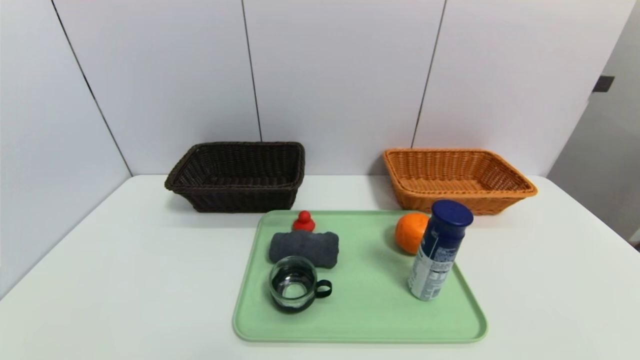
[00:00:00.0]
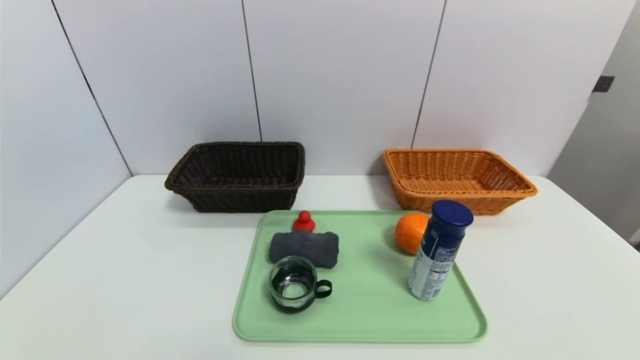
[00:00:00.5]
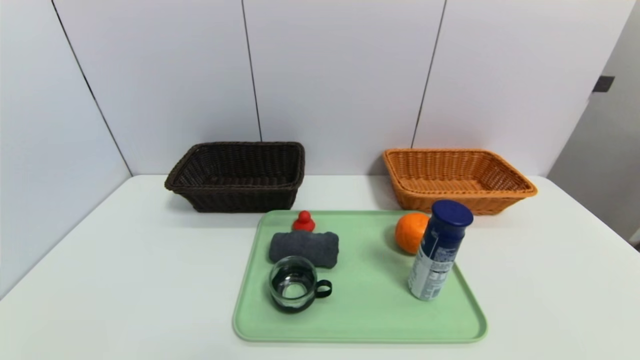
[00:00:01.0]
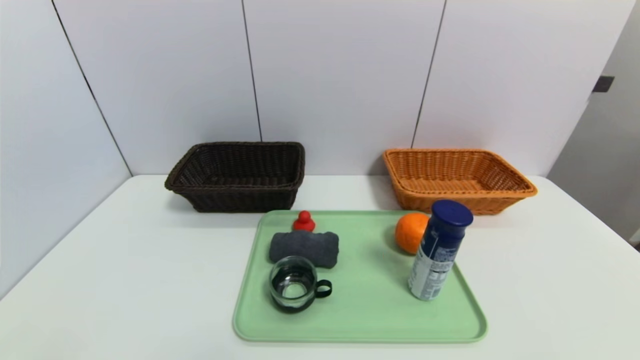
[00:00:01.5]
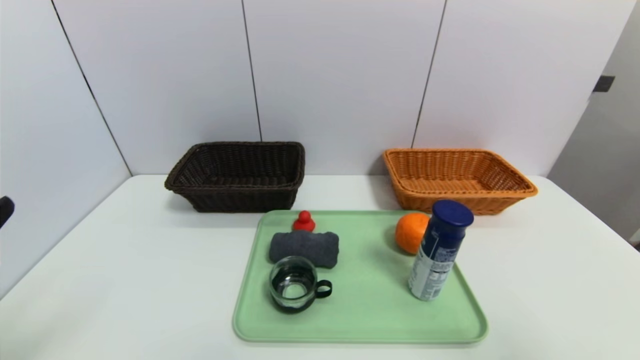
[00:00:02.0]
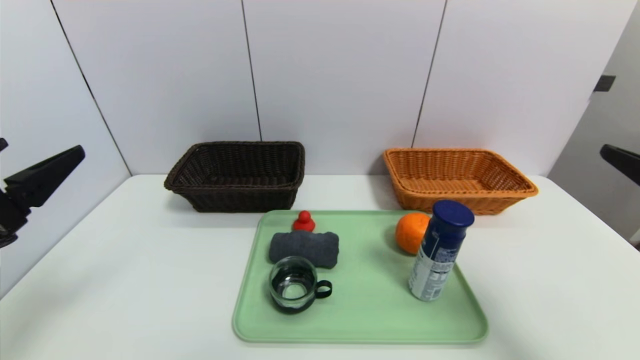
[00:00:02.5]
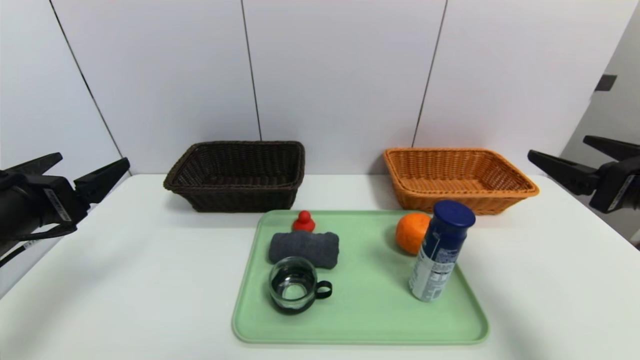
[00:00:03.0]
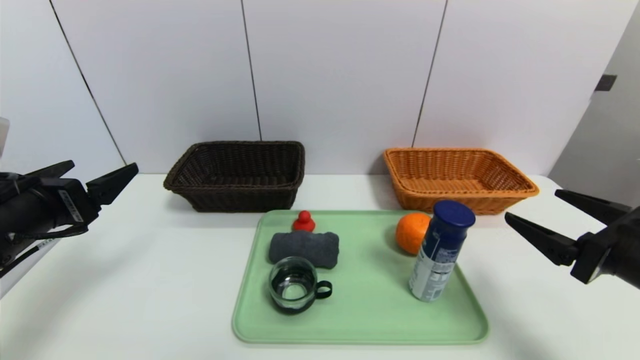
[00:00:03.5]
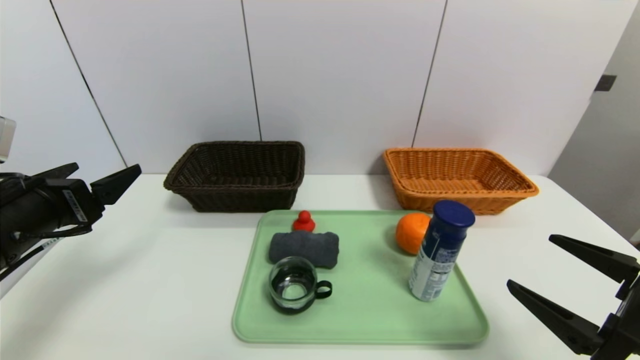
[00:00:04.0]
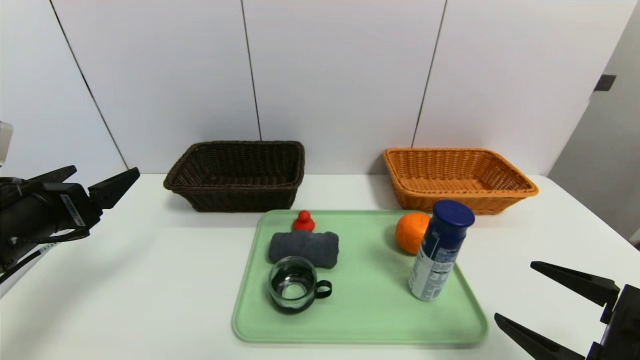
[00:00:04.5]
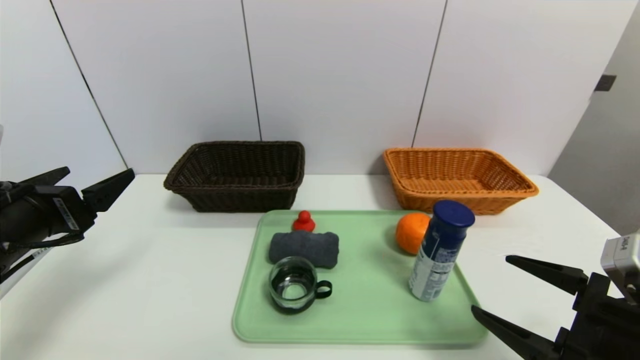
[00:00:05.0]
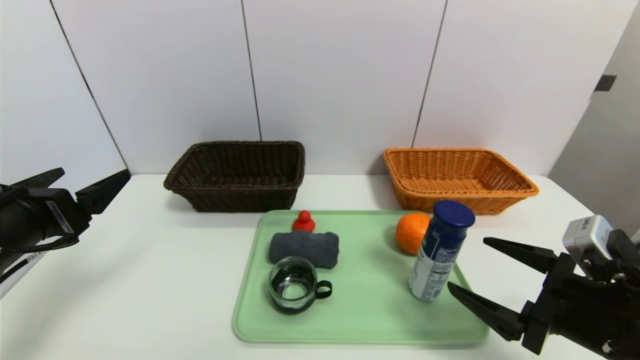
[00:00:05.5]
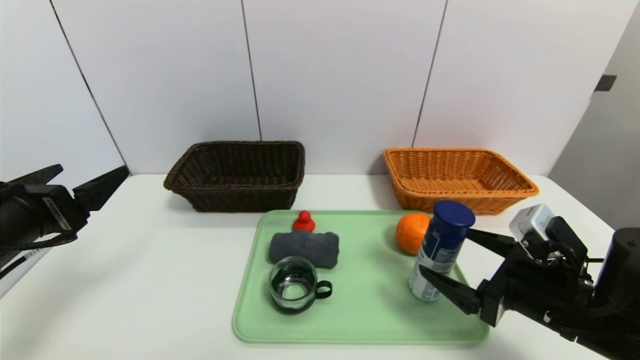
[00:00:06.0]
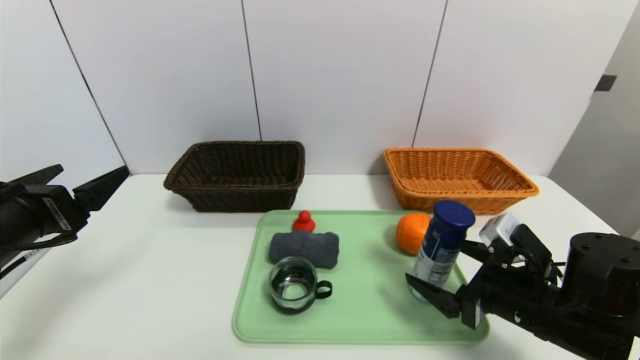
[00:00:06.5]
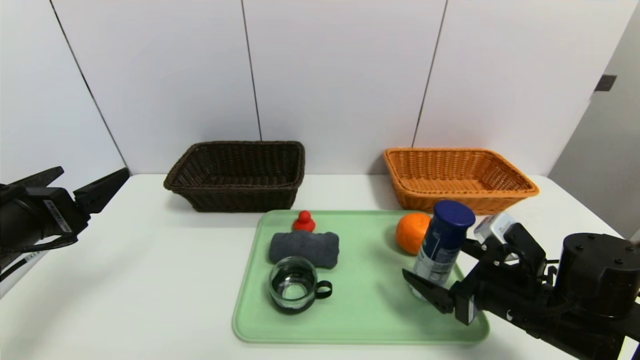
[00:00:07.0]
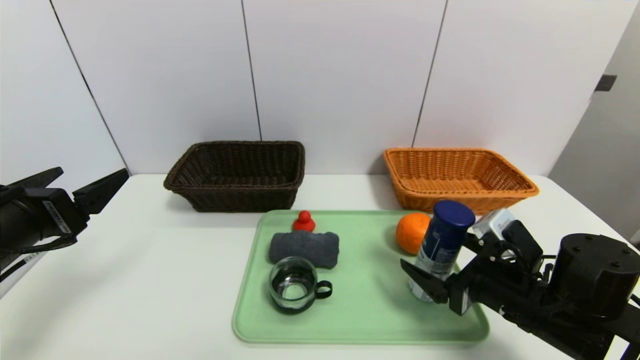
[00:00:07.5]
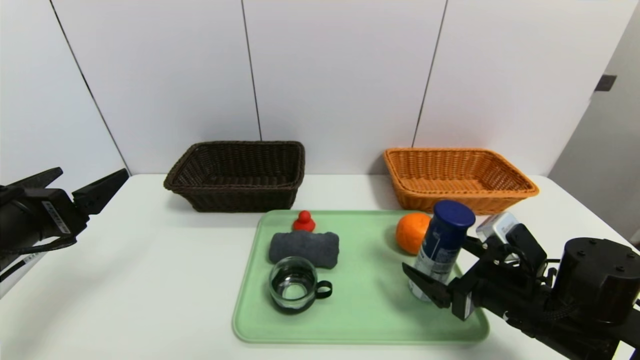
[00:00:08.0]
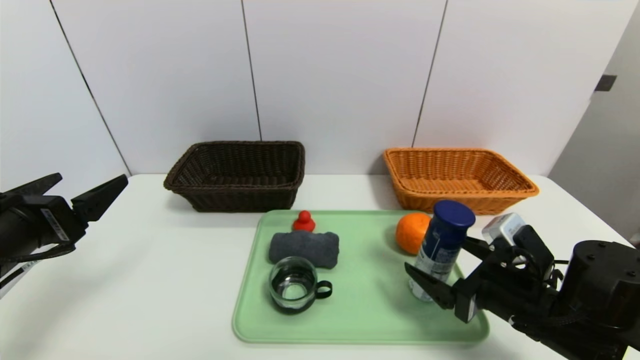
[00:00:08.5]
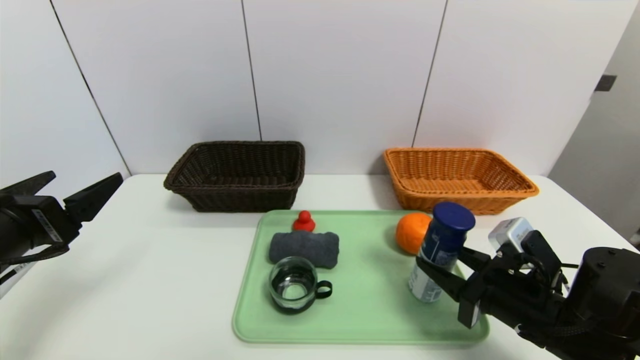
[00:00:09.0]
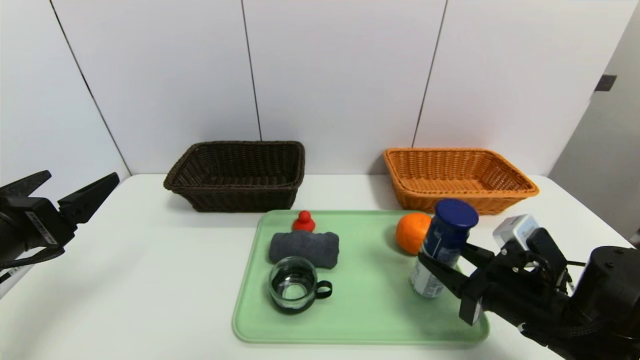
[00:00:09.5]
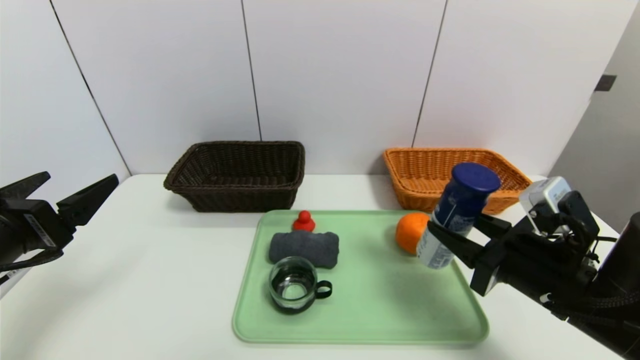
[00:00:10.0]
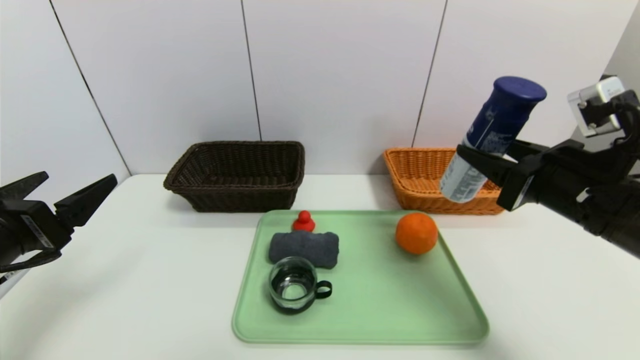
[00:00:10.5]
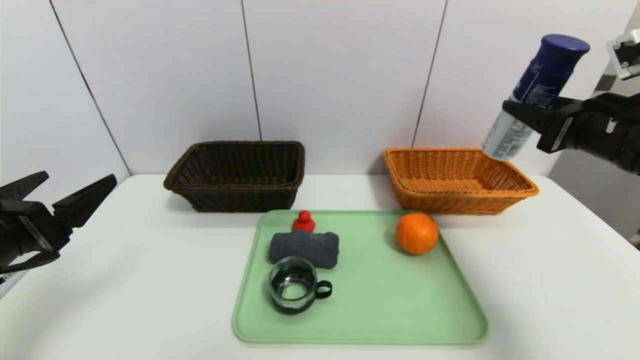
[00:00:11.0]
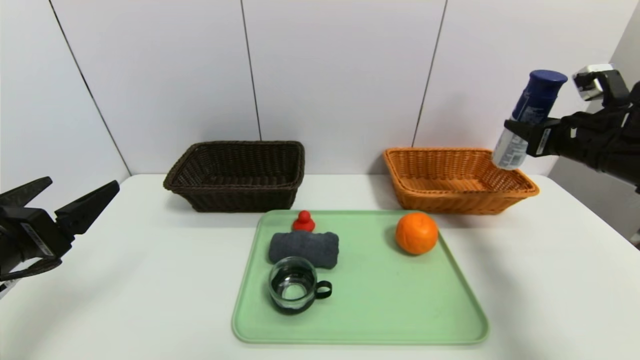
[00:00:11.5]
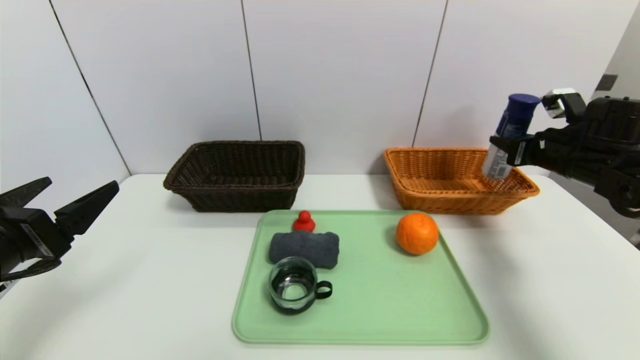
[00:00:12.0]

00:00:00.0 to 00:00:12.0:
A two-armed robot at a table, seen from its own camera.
Task of the whole recording: place the food in the right basket with the right gripper, and place the non food items in the left basket with the left gripper.
00:00:02.0 to 00:00:04.0: The right gripper travels downward and forward by about 15 cm. The left gripper moves forward, about 15 cm.
00:00:04.0 to 00:00:06.0: The right gripper travels forward by roughly 10 cm.
00:00:06.0 to 00:00:08.0: The grippers make only small movements.
00:00:08.0 to 00:00:10.0: The right gripper shifts approximately 5 cm upward, and closes up.
00:00:10.0 to 00:00:12.0: The right gripper moves forward and to the right, roughly 25 cm.

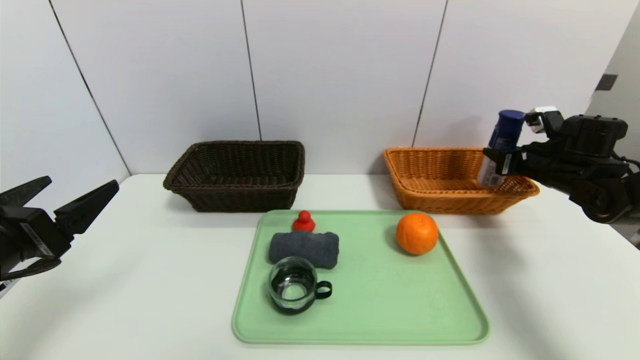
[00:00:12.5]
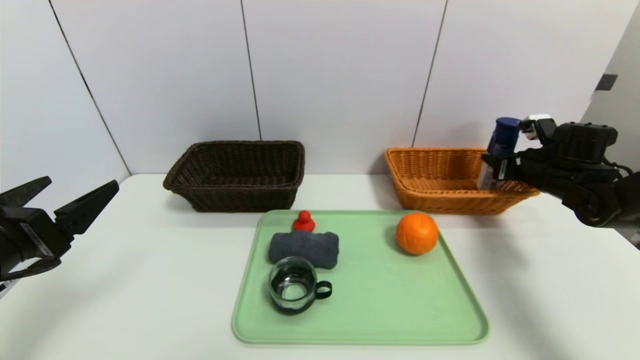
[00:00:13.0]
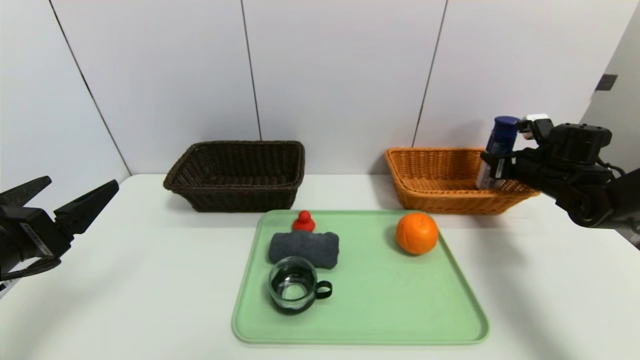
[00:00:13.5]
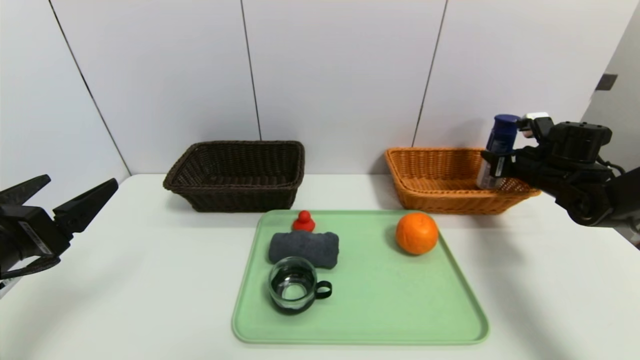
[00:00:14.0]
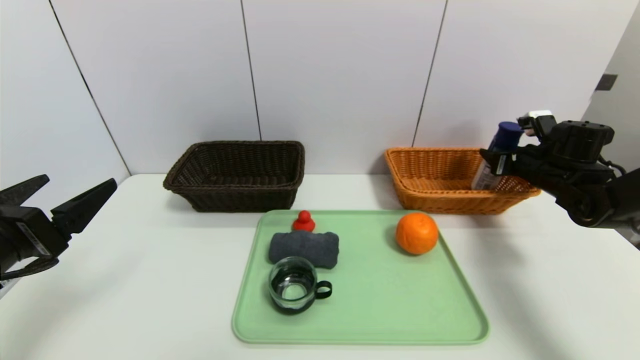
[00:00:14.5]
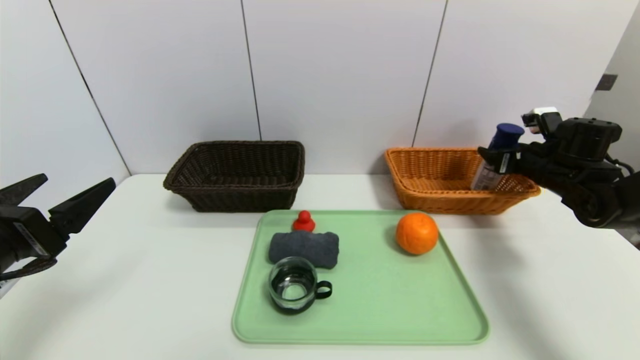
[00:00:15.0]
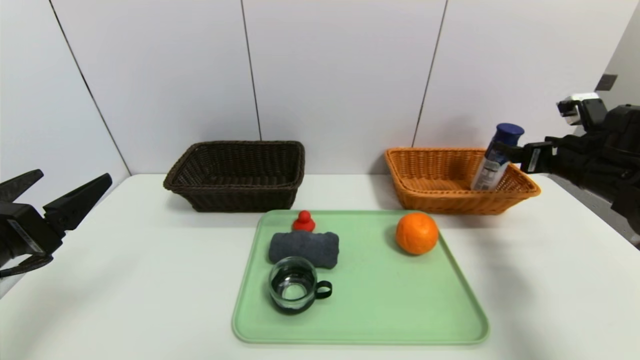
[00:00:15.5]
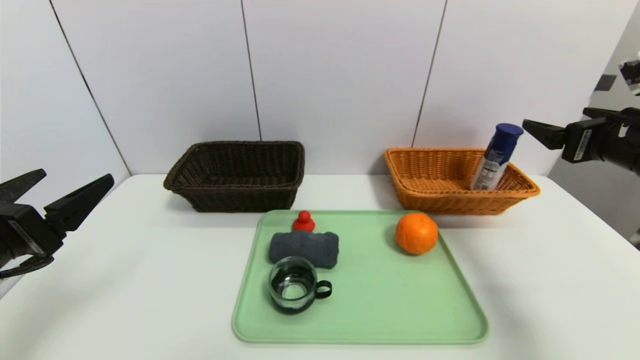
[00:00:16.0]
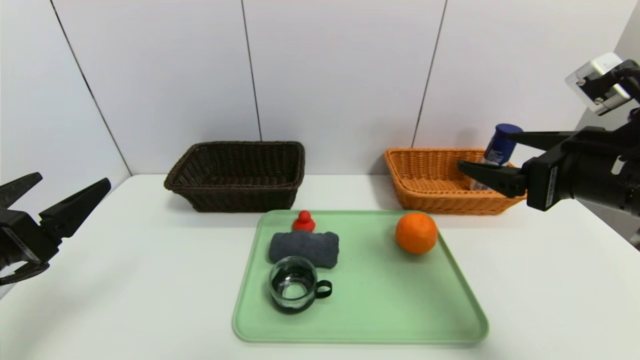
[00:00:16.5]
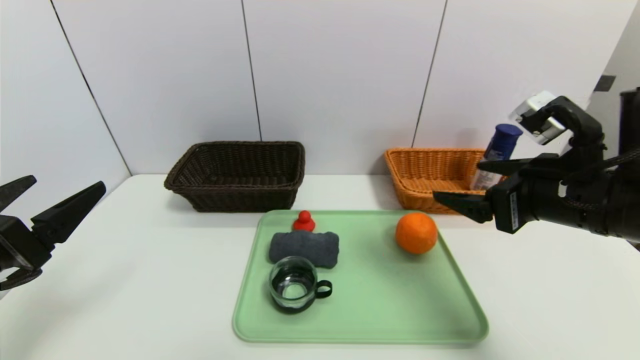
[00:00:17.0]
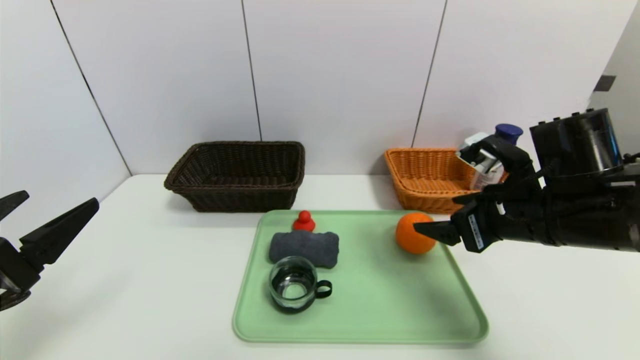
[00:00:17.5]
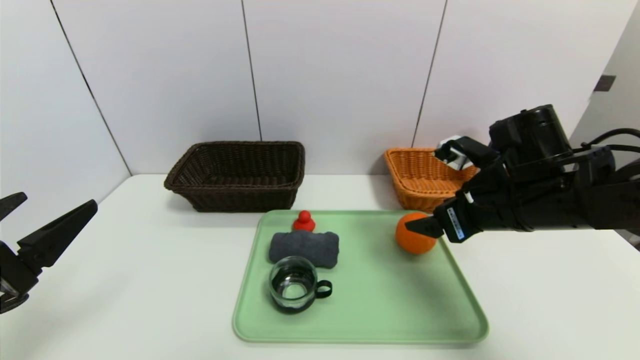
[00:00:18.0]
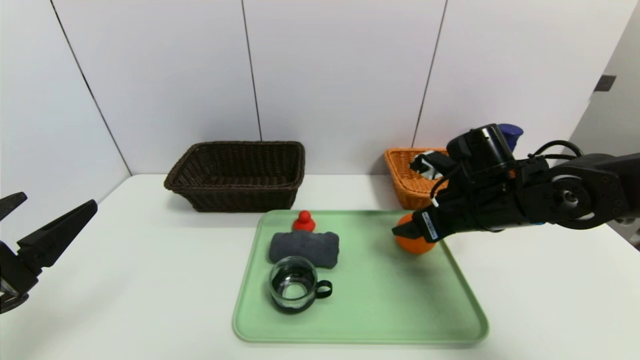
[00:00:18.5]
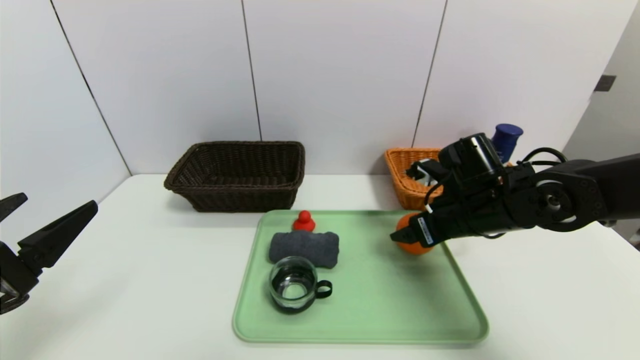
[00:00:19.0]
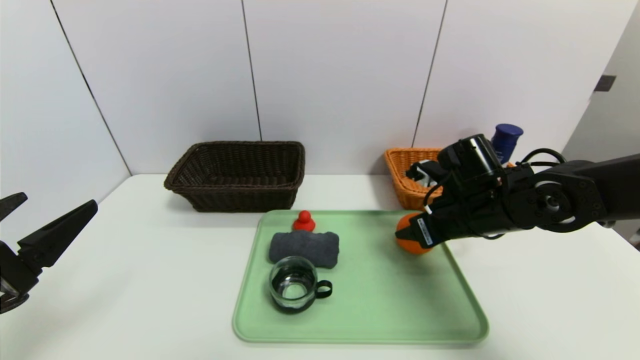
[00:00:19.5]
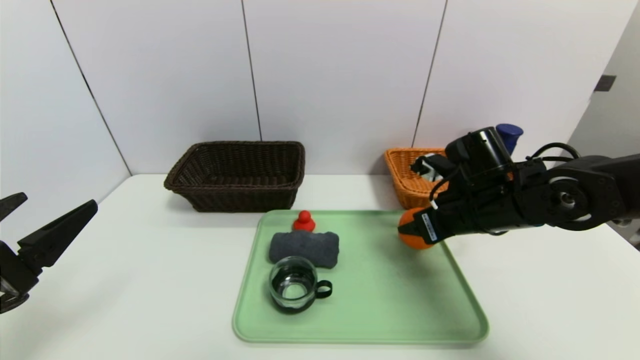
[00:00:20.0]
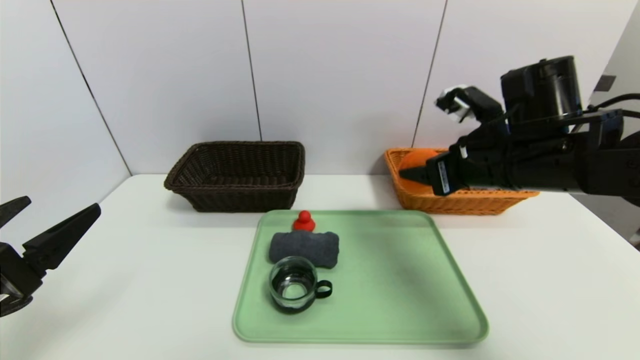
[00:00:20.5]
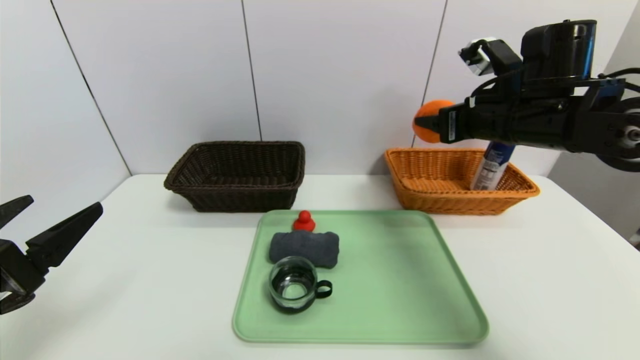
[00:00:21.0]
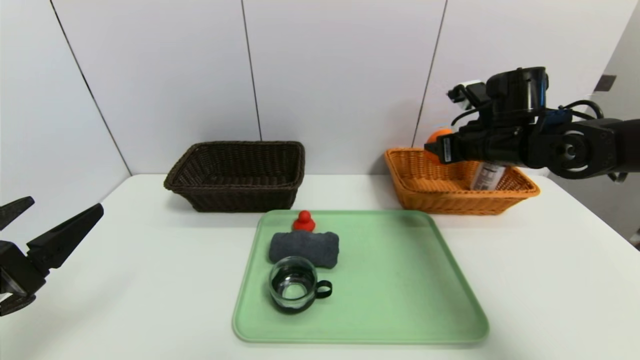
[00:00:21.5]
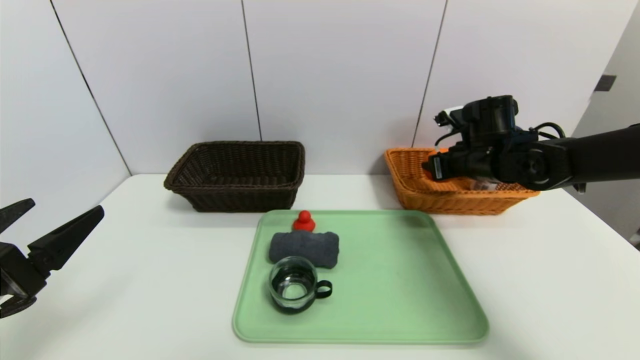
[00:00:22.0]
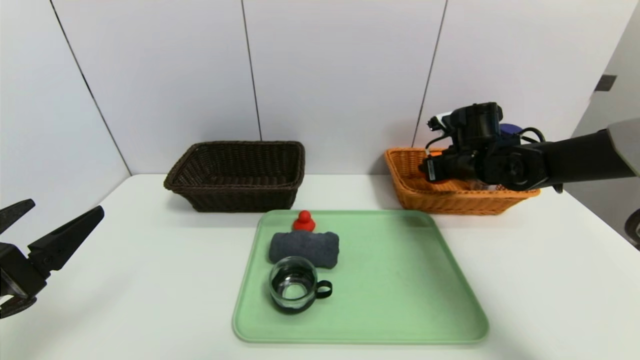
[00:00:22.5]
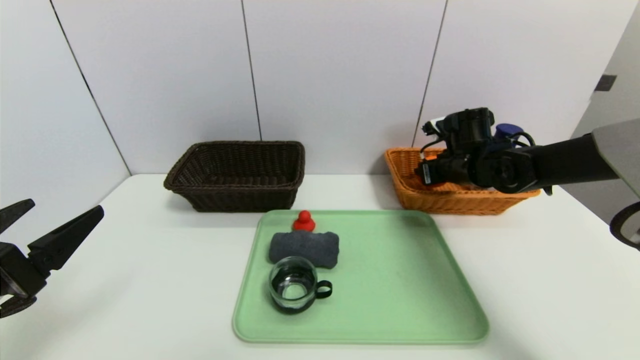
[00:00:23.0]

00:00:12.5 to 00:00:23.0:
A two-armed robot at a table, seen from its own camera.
Task of the whole recording: place the food in the right basket with the right gripper, and place the non food items in the left basket with the left gripper.
Step, 00:00:12.5 to 00:00:15.5: Grasp the yogurt and put it in the right basket.
00:00:12.5 to 00:00:14.5: The right gripper opens.
00:00:14.5 to 00:00:16.5: The right gripper travels backward, to the left and upward by about 25 cm, and opens up.
00:00:16.5 to 00:00:19.0: The right gripper goes approximately 15 cm forward, downward and to the left.
00:00:19.0 to 00:00:21.0: The right gripper moves upward, approximately 10 cm, and closes.
00:00:21.0 to 00:00:23.0: The right gripper travels downward and forward by some 15 cm.
